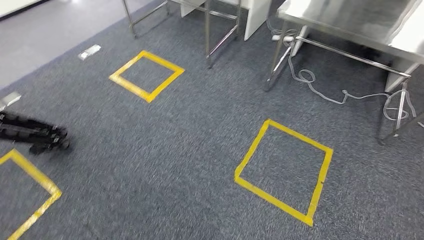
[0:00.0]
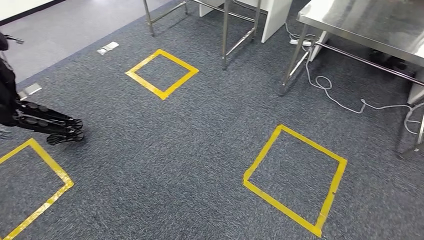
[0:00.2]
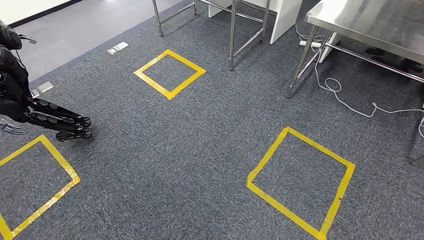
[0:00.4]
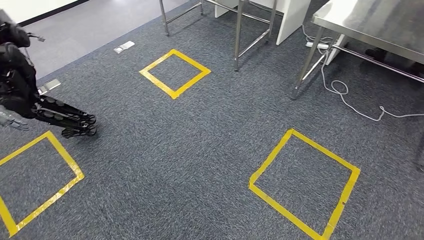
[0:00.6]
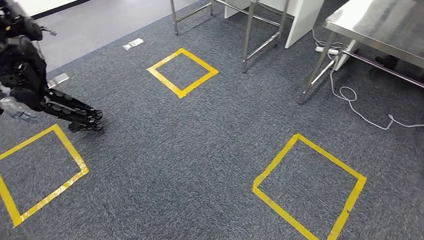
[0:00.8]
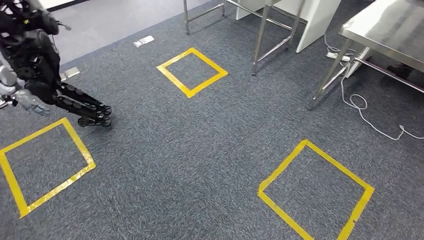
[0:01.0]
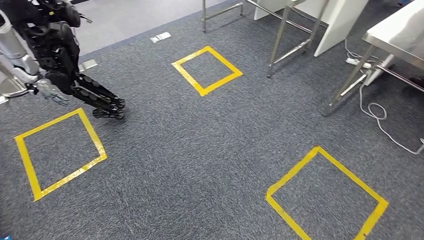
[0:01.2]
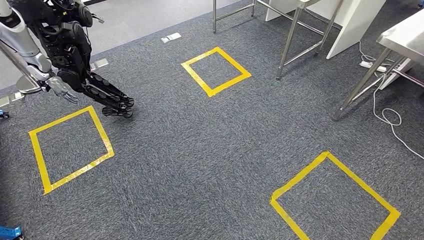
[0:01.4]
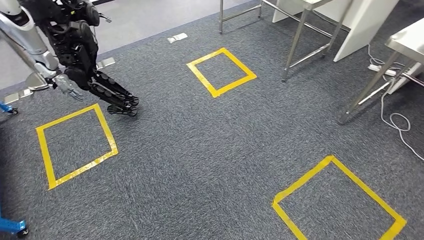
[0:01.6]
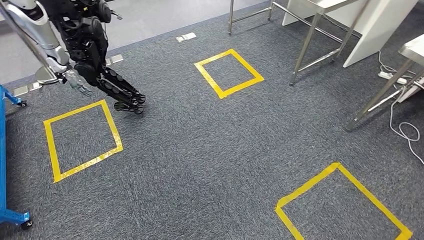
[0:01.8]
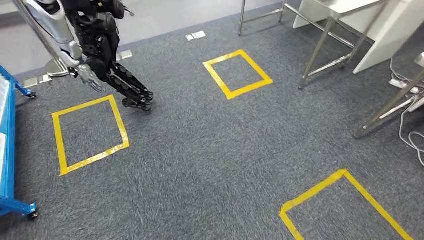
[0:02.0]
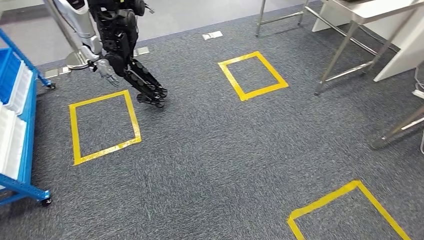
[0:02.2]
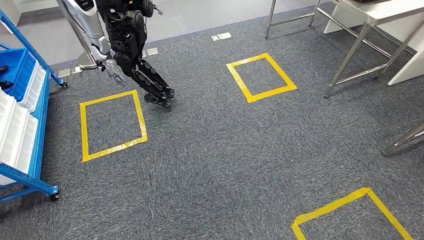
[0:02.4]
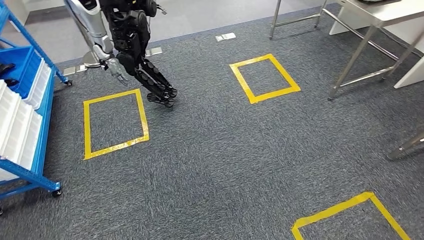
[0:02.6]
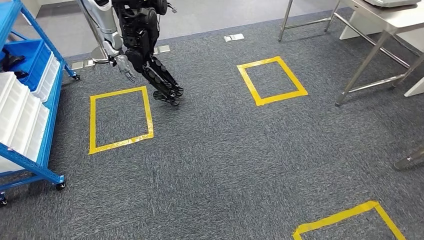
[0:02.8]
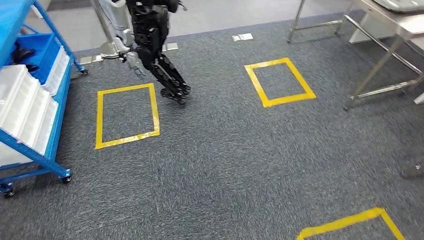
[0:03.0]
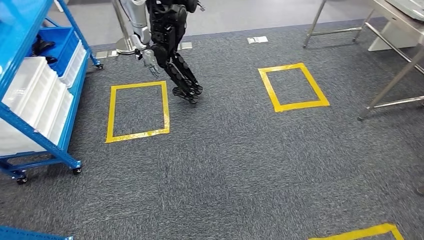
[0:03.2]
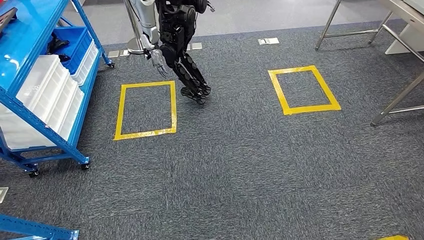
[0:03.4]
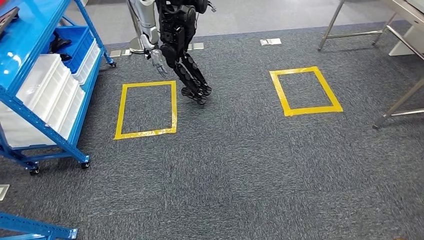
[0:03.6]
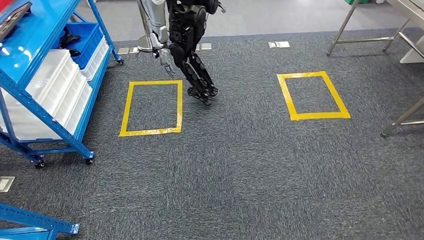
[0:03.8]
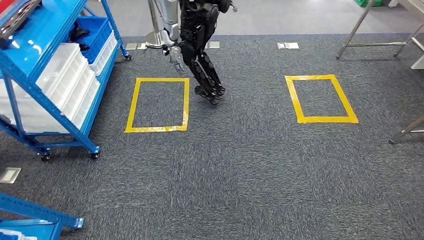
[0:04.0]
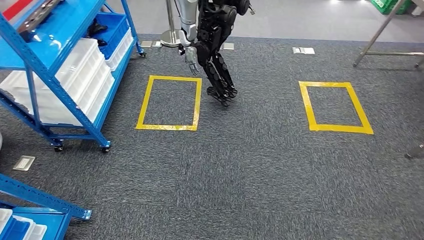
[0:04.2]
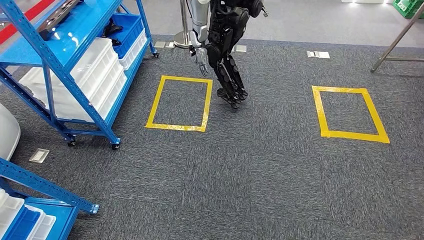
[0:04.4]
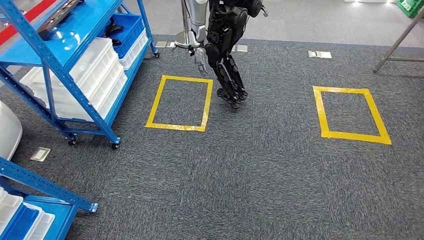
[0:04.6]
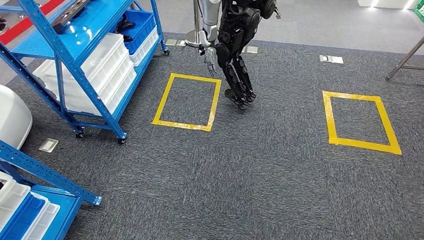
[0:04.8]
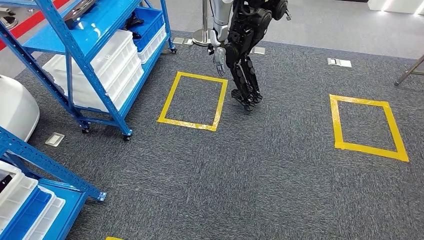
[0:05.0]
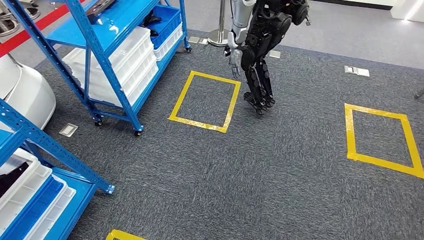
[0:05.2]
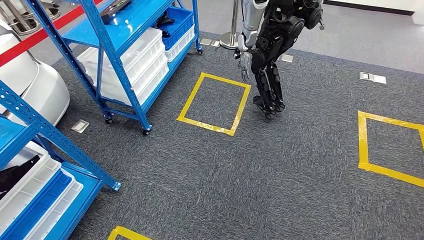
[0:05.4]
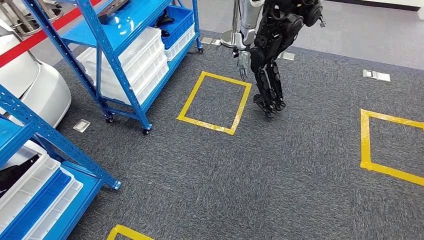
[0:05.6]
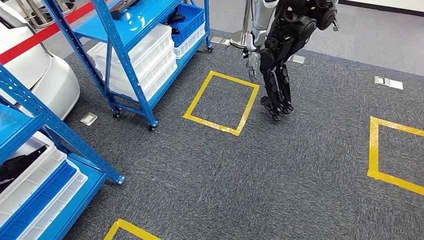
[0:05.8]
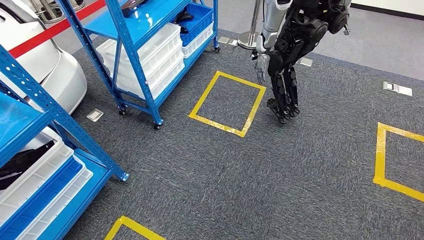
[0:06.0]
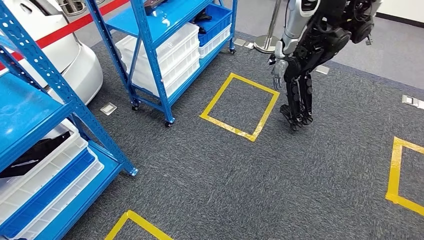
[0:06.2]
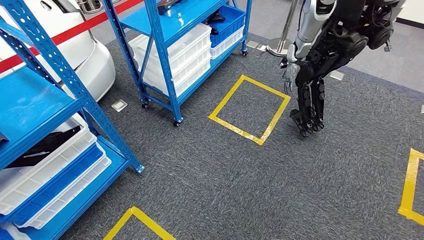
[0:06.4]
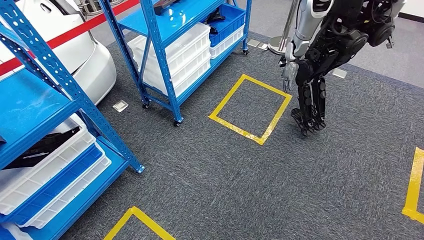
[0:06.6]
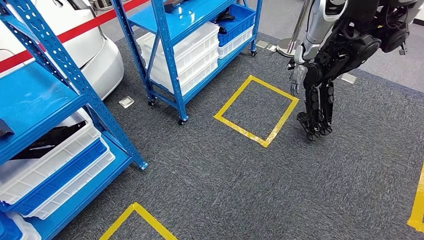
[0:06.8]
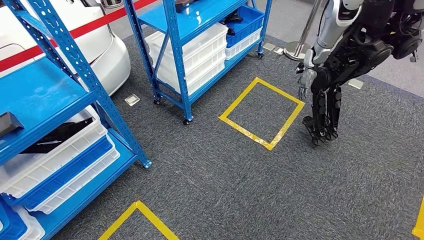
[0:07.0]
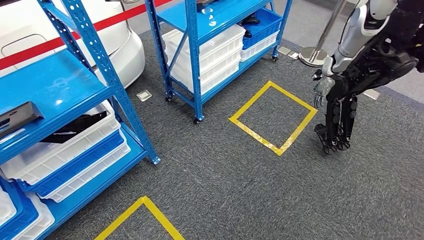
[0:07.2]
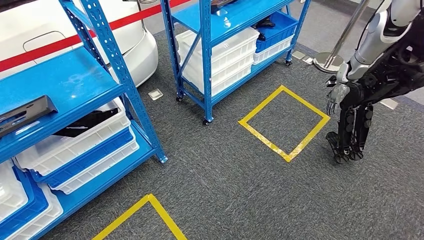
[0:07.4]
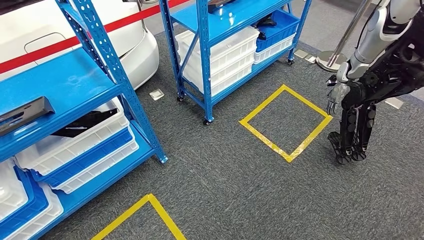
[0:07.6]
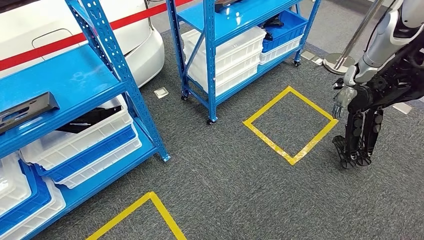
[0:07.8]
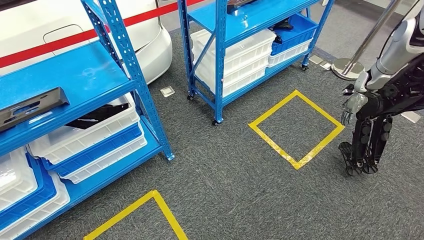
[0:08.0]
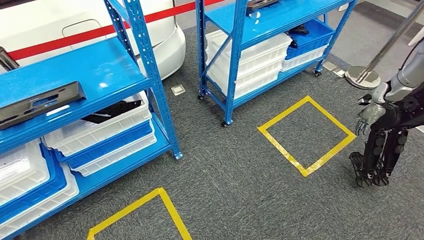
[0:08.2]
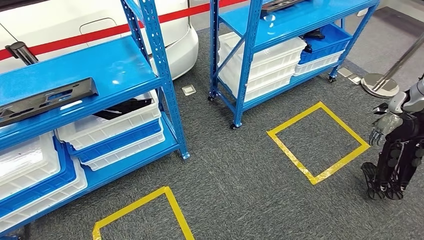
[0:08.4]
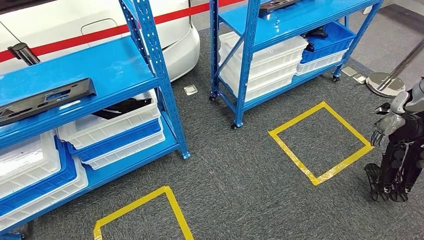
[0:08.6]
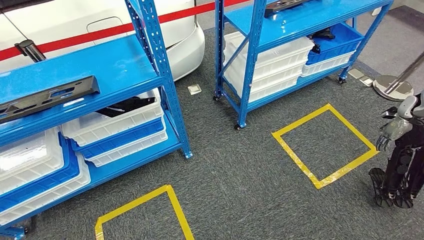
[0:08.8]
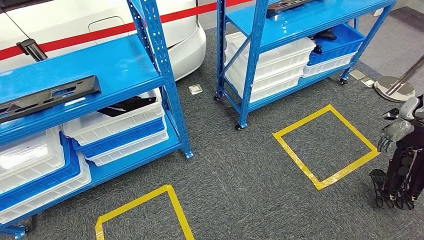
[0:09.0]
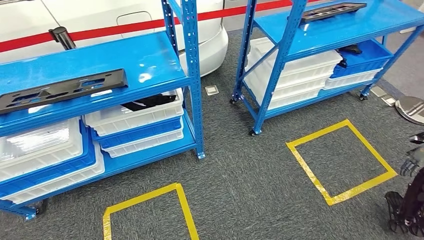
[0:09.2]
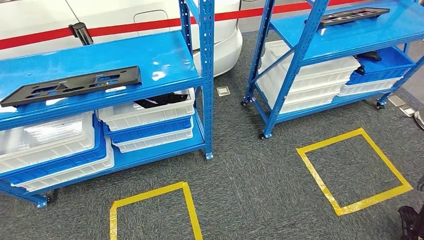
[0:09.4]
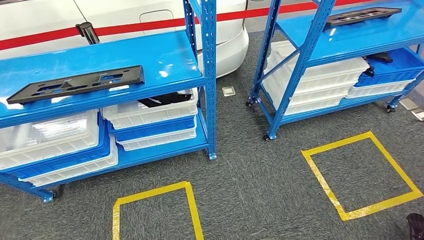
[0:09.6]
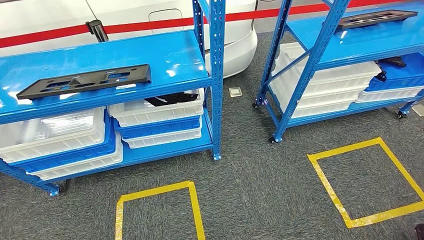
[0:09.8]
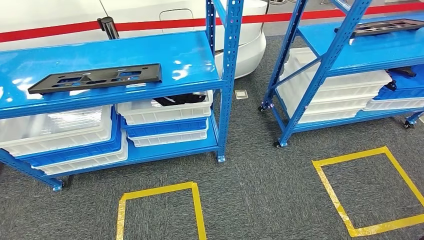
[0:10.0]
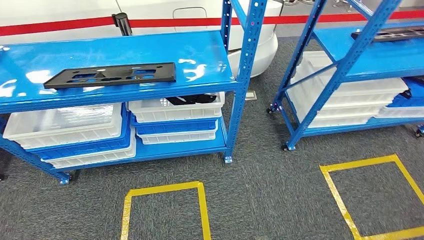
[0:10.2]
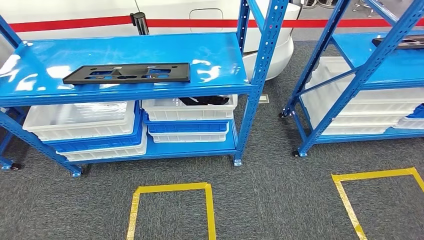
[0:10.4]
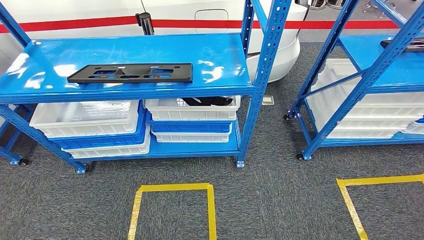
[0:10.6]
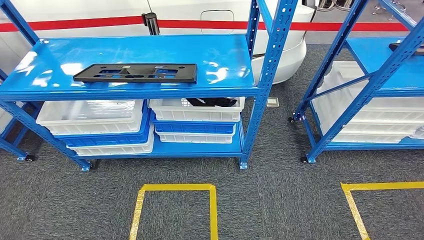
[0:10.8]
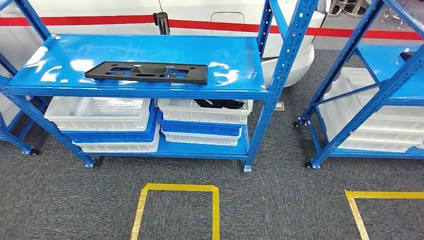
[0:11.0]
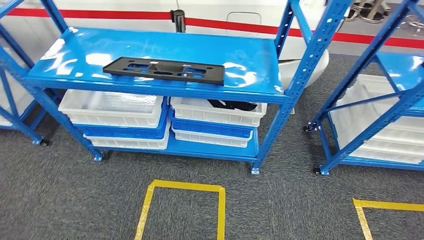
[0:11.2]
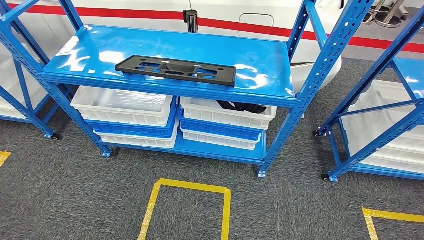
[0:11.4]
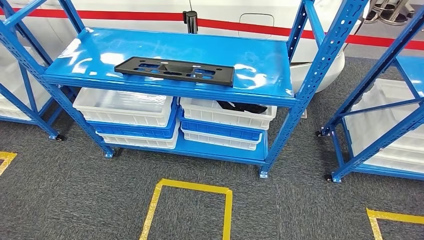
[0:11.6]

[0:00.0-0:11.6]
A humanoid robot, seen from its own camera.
Step, 0:00.0 to 0:11.6: Move to the initial position of the shelf.
